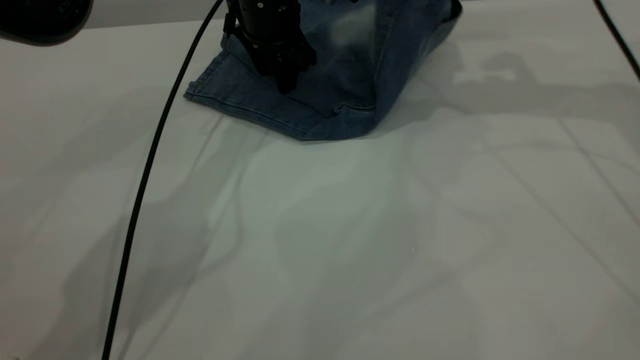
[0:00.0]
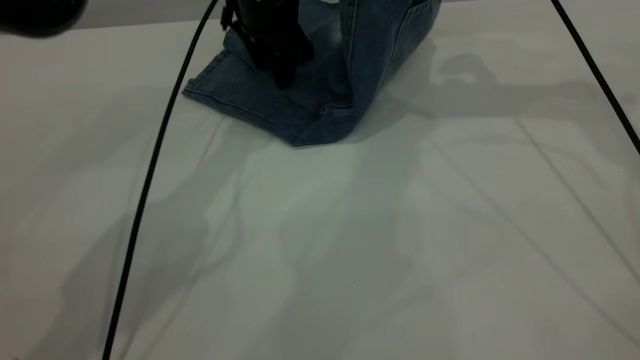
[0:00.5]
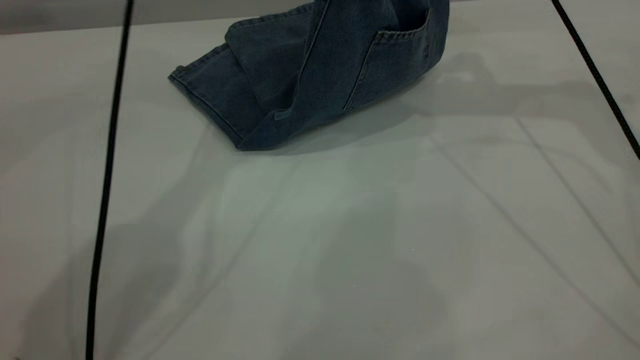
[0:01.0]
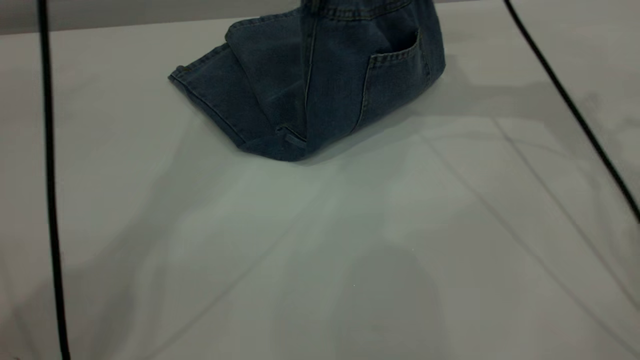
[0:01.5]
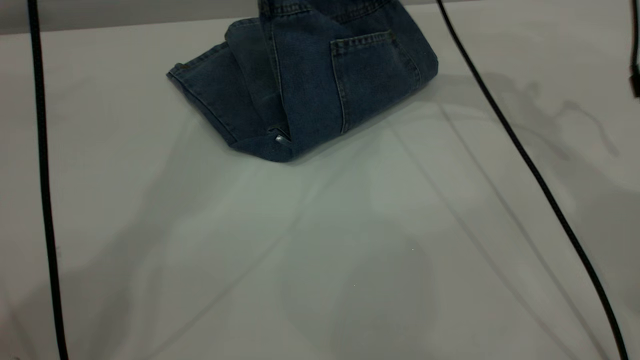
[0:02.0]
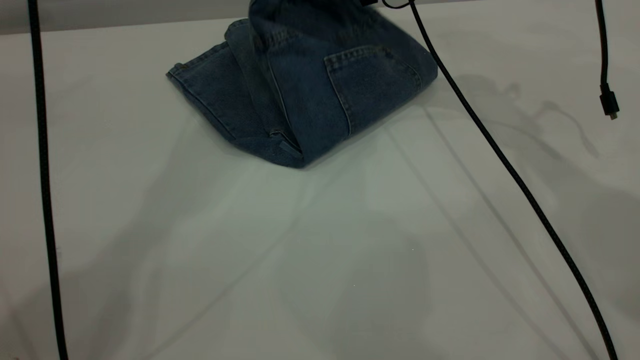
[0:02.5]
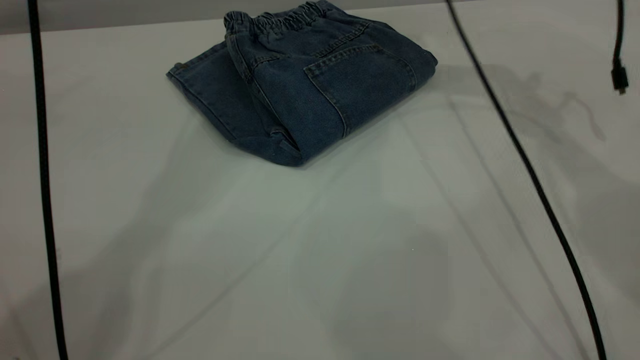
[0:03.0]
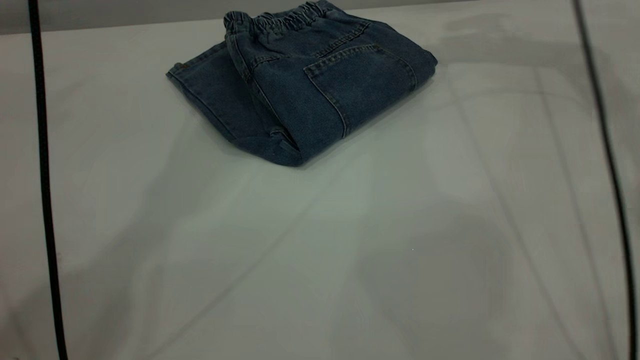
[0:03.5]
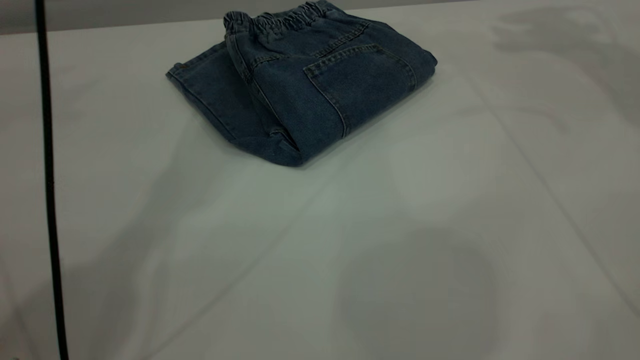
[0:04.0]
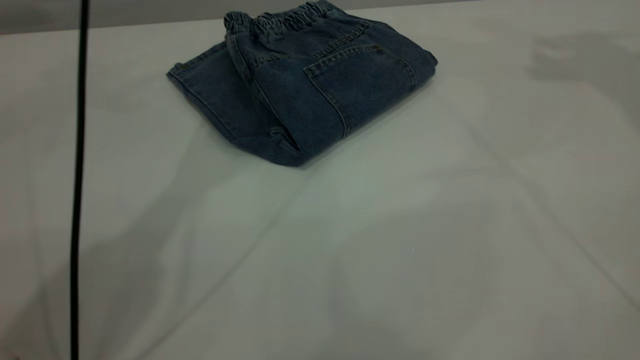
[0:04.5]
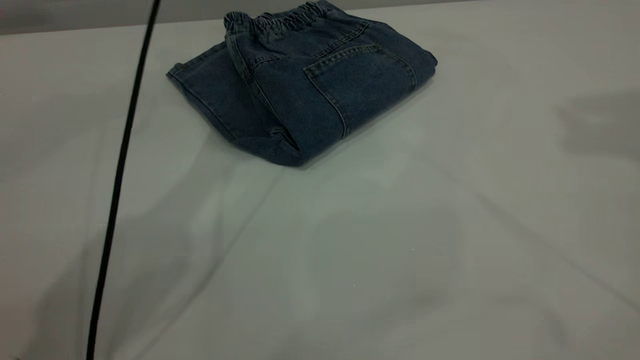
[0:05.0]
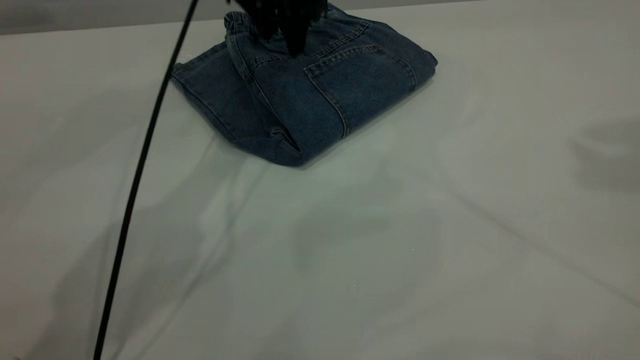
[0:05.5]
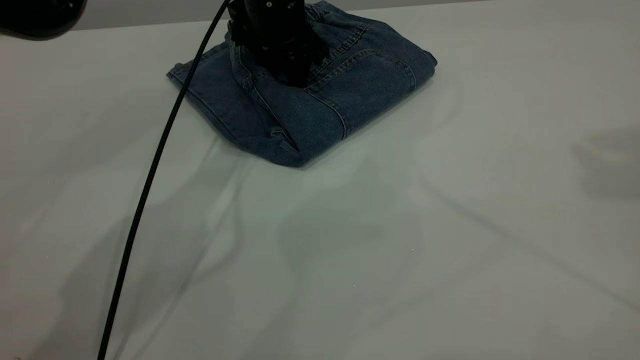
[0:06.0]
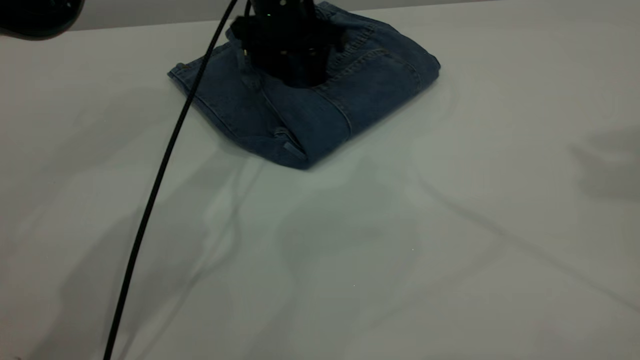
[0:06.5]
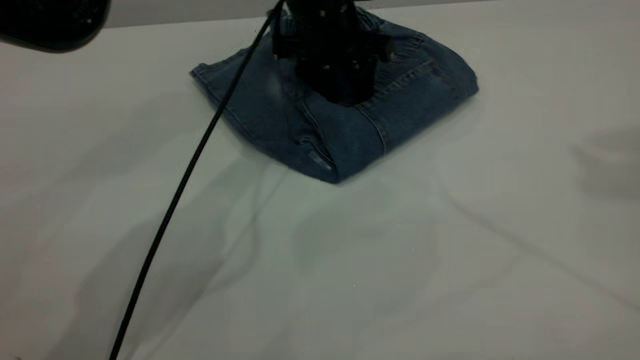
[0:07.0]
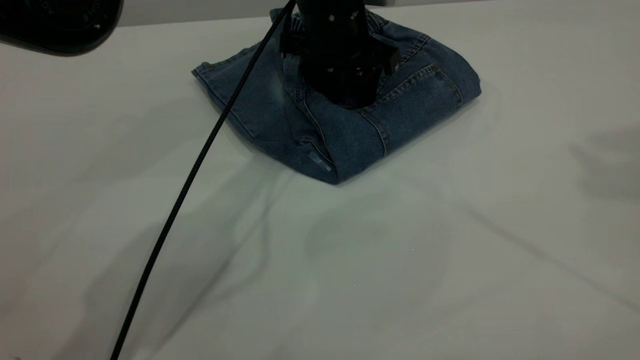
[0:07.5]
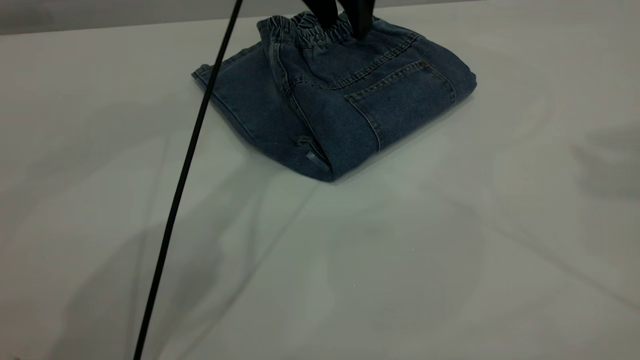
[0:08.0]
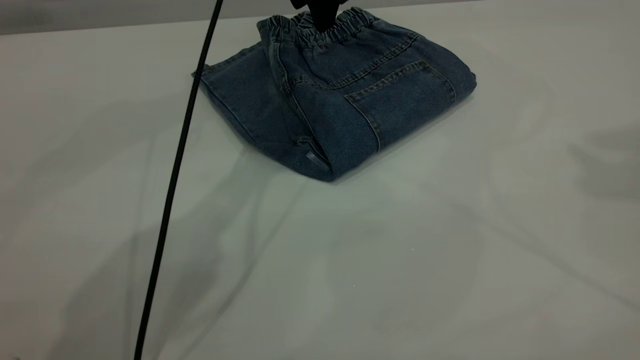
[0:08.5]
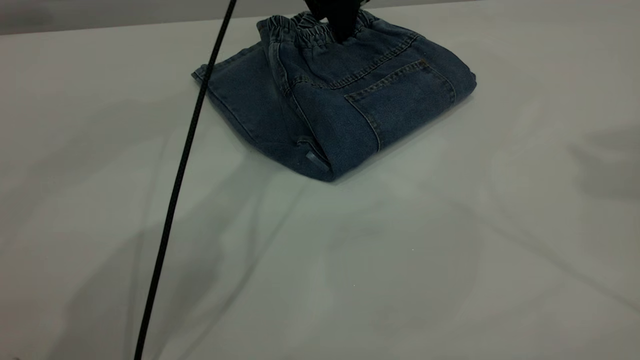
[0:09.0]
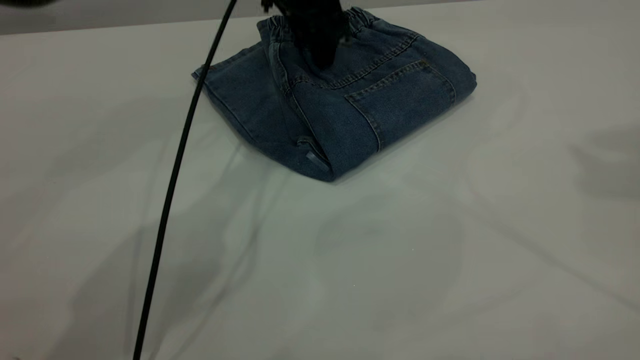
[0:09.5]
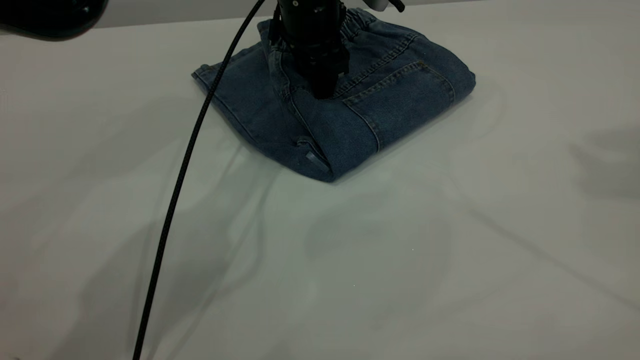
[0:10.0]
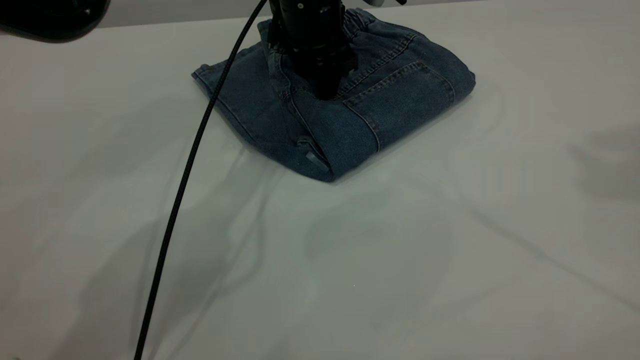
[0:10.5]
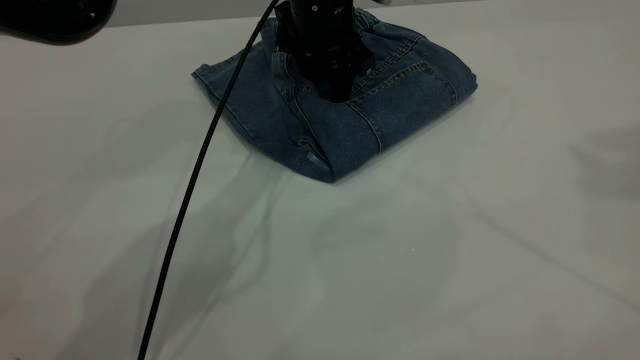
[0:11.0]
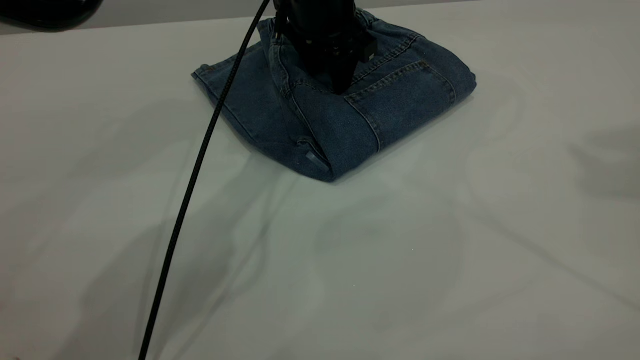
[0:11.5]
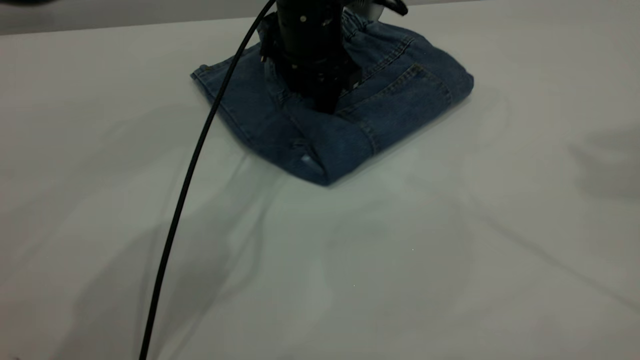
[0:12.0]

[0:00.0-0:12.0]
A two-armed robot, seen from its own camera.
Step, 0:00.0 to 0:02.5: Fold your pants from right to left.
0:00.0 to 0:02.0: The left gripper shifts about 35 cm upward; the right gripper goes approximately 15 cm to the left and downward.
0:02.0 to 0:04.0: The right gripper is displaced to the right and upward by approximately 25 cm, and opens.
0:04.0 to 0:06.0: The left gripper heads downward, covering about 35 cm; the right gripper shifts approximately 25 cm backward and upward.
0:06.0 to 0:08.0: The left gripper goes about 10 cm upward and to the right.
0:08.0 to 0:10.0: The left gripper shifts some 10 cm downward.
0:10.0 to 0:12.0: There are only small adjustments of the grippers.

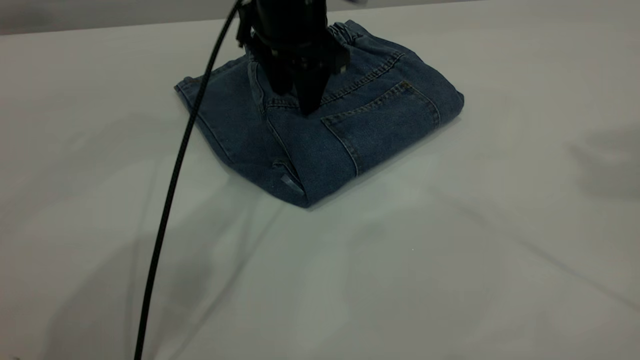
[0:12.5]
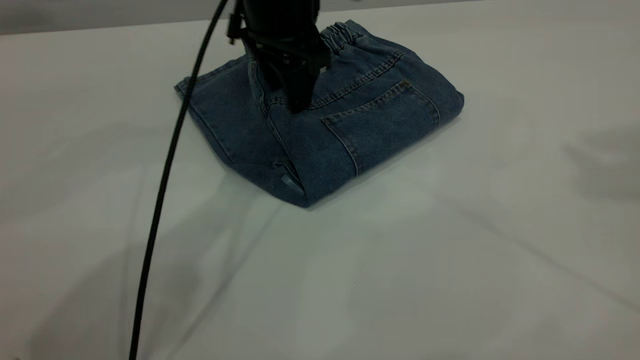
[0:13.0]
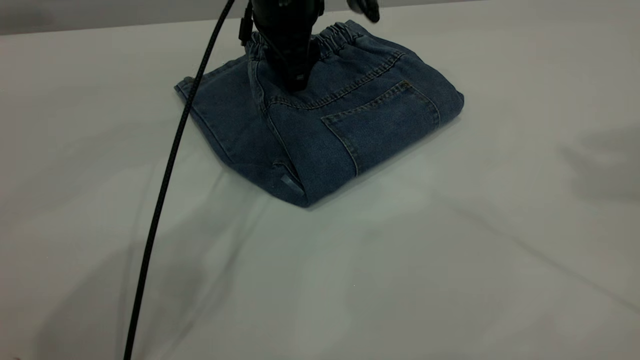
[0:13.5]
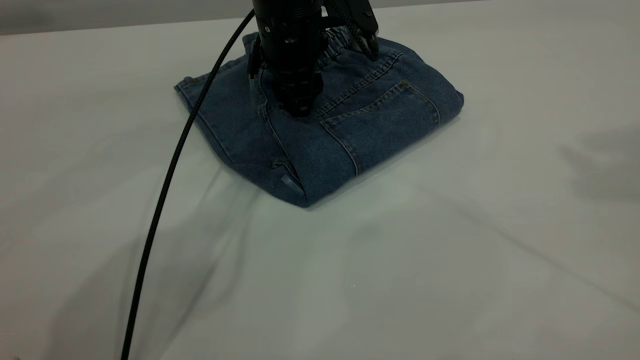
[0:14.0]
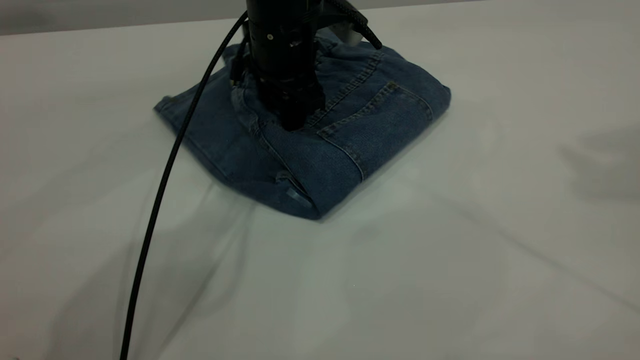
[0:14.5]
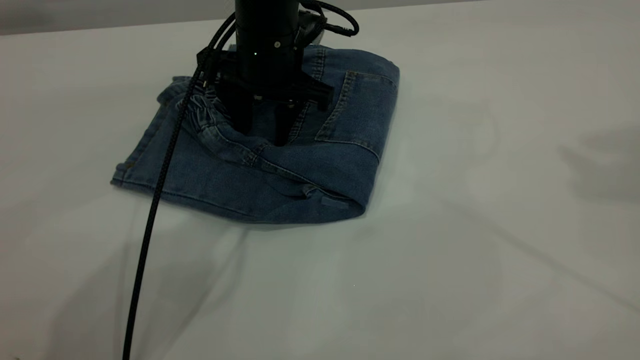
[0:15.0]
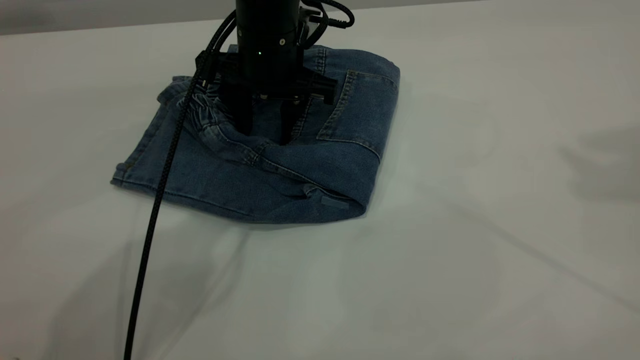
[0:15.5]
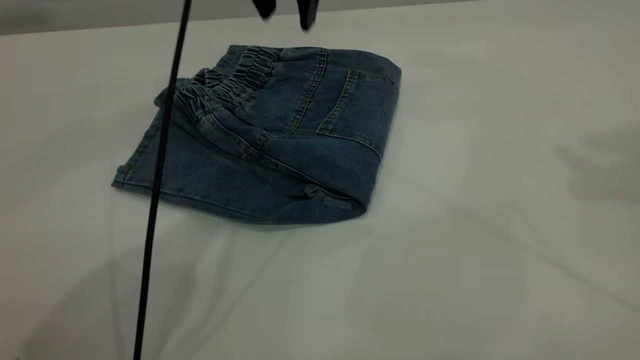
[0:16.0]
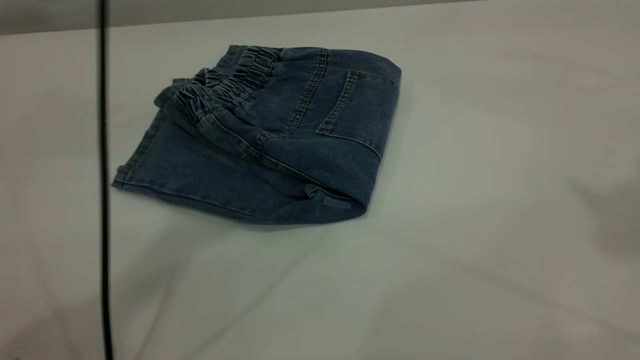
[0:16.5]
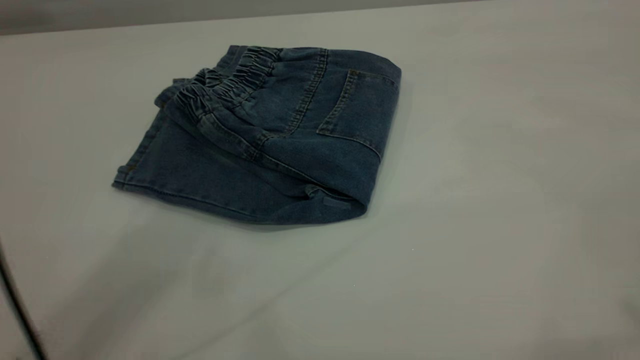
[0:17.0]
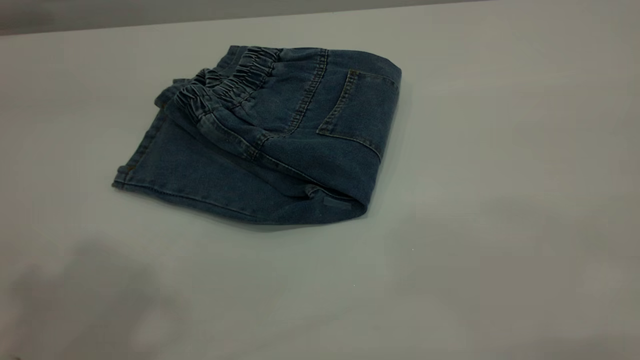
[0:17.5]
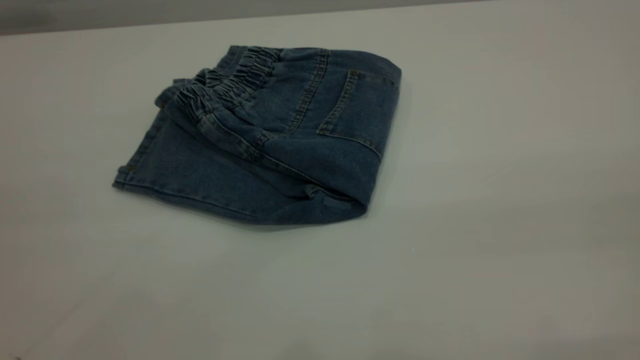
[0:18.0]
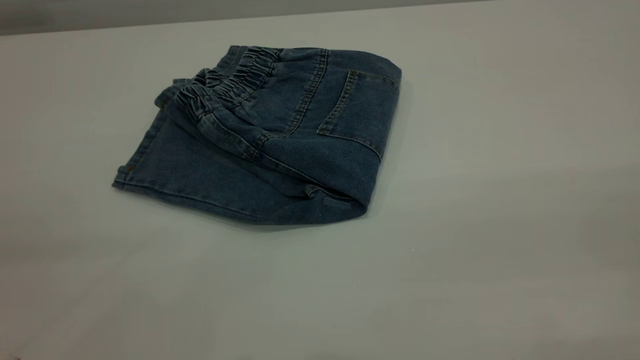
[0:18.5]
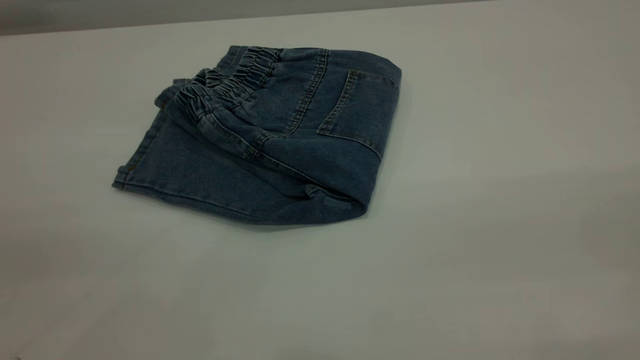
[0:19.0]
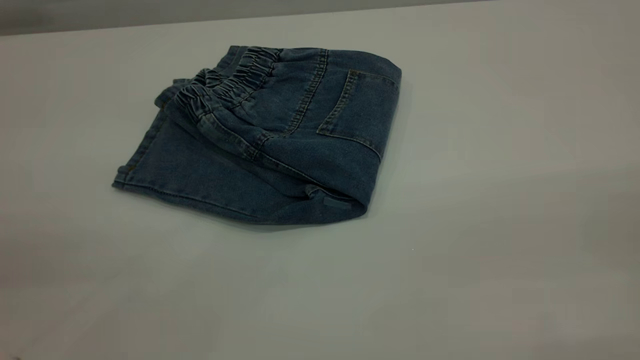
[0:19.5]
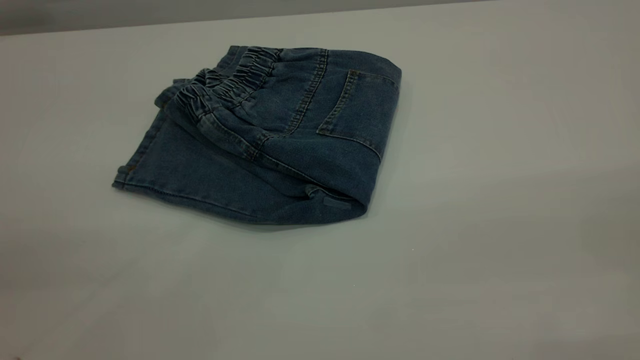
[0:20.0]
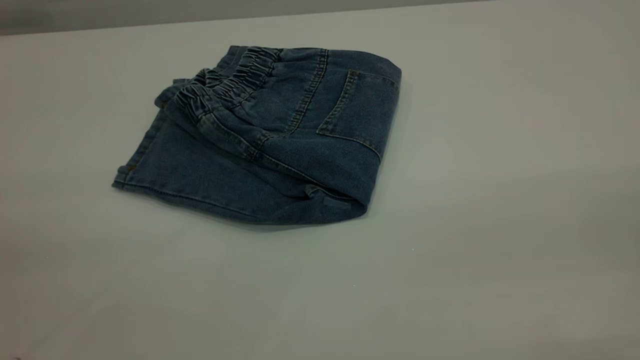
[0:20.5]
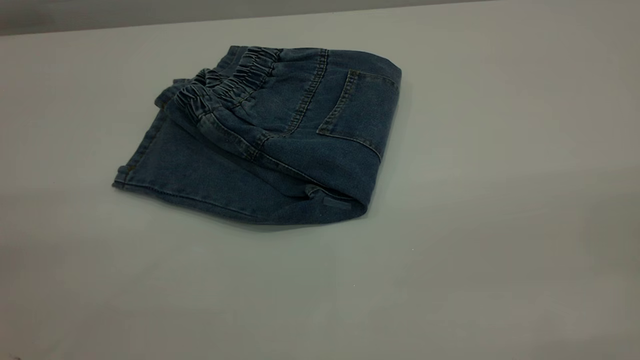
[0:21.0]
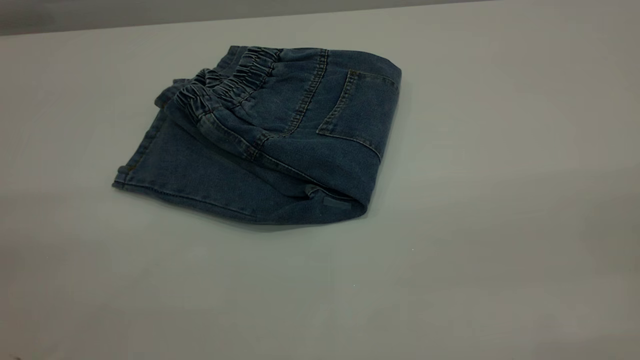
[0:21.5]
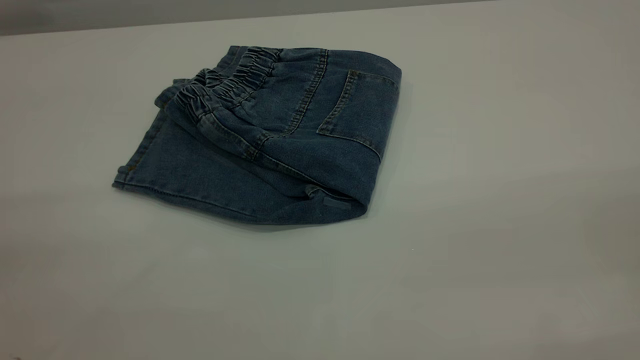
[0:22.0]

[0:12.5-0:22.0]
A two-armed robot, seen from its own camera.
0:12.5 to 0:14.5: The left gripper heads downward, covering some 5 cm.
0:14.5 to 0:16.5: The left gripper is displaced upward by about 30 cm; the right gripper moves backward and upward, roughly 10 cm.
0:16.5 to 0:18.0: The left gripper travels backward and to the left by approximately 40 cm.
